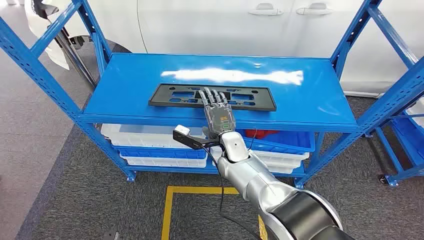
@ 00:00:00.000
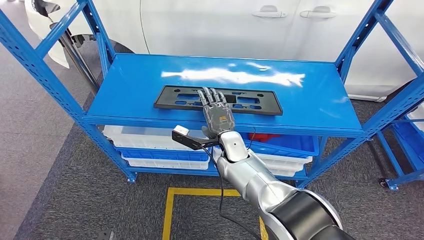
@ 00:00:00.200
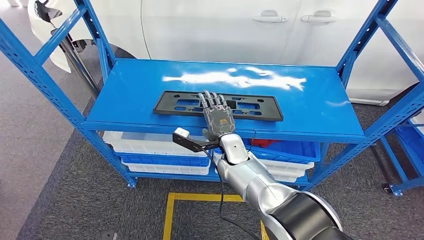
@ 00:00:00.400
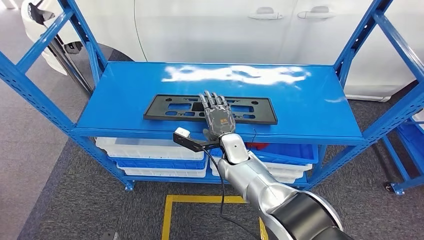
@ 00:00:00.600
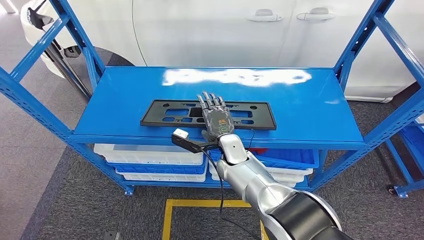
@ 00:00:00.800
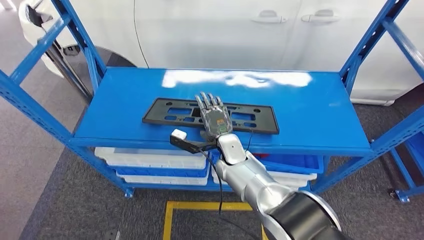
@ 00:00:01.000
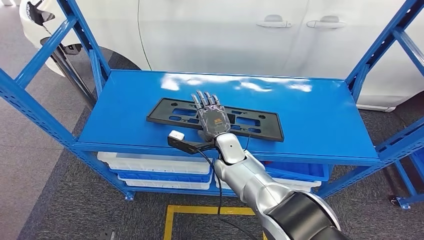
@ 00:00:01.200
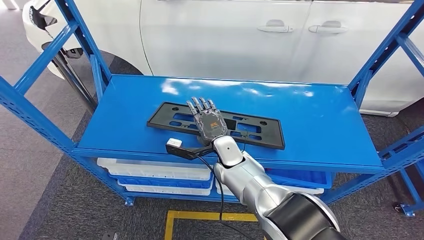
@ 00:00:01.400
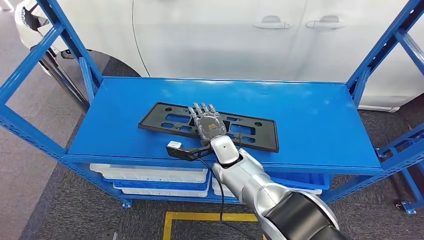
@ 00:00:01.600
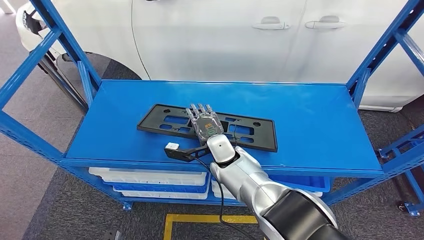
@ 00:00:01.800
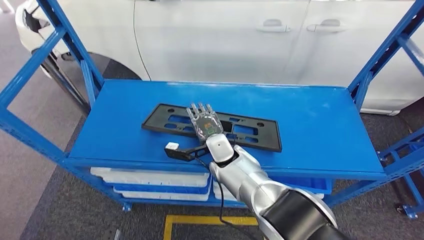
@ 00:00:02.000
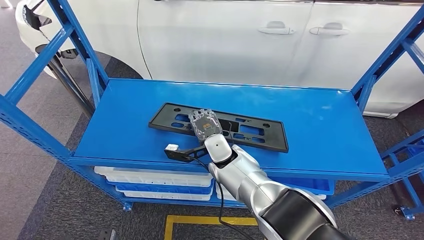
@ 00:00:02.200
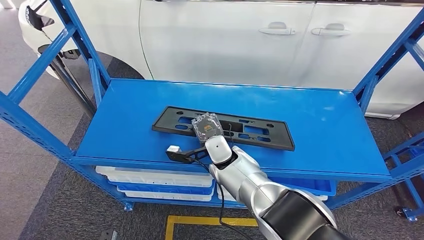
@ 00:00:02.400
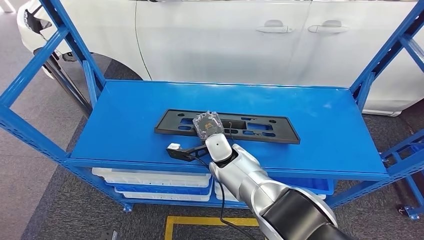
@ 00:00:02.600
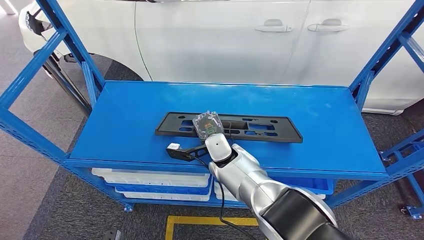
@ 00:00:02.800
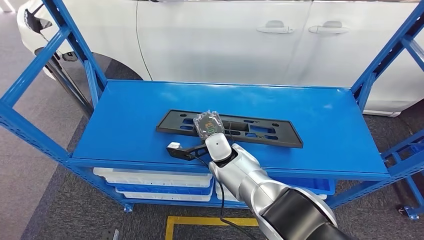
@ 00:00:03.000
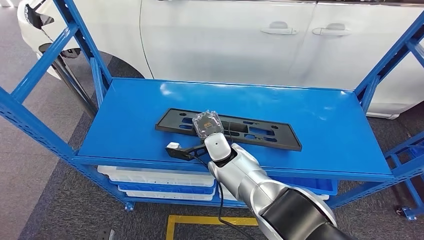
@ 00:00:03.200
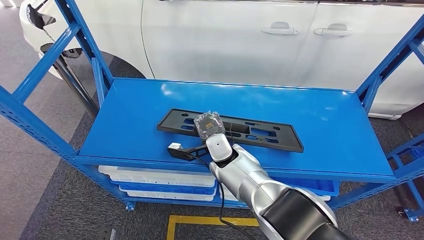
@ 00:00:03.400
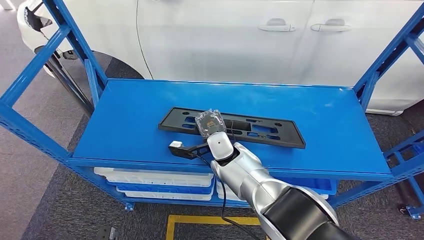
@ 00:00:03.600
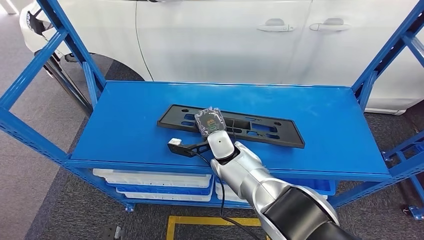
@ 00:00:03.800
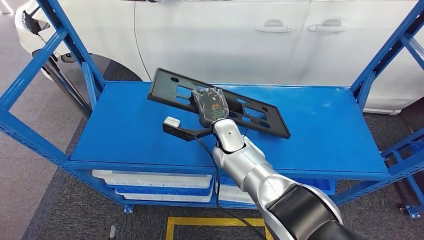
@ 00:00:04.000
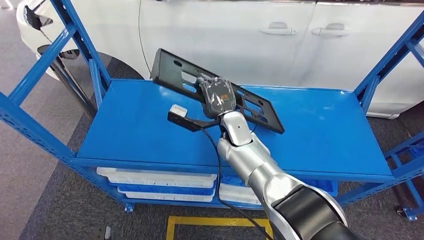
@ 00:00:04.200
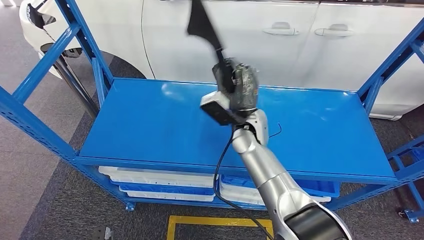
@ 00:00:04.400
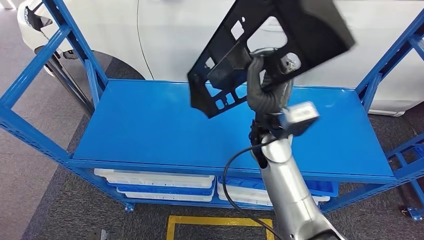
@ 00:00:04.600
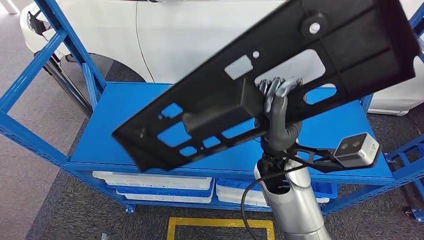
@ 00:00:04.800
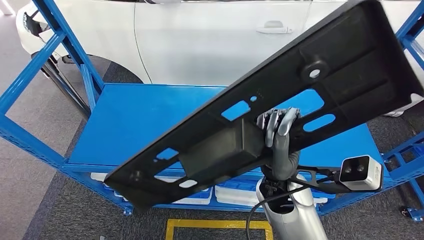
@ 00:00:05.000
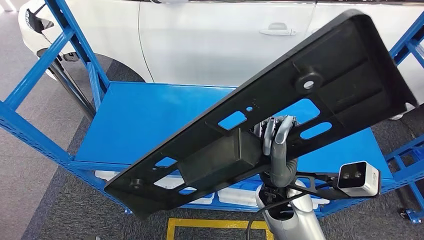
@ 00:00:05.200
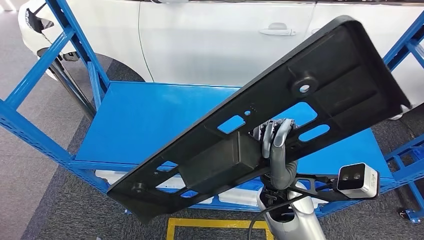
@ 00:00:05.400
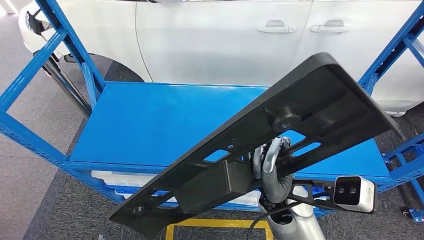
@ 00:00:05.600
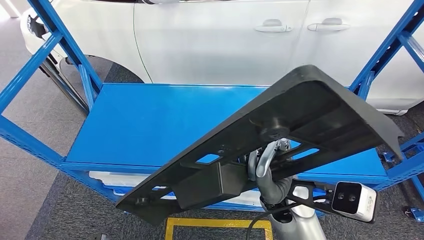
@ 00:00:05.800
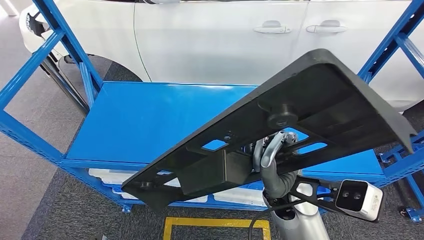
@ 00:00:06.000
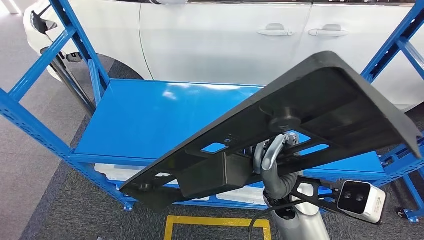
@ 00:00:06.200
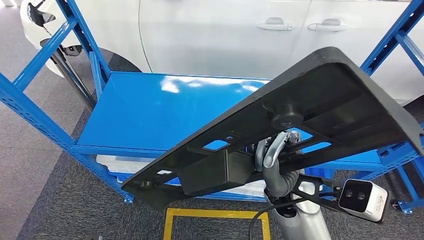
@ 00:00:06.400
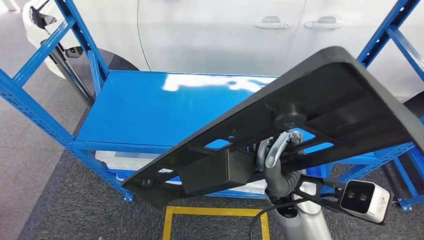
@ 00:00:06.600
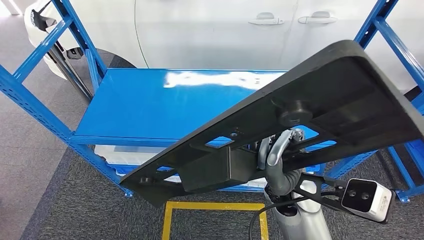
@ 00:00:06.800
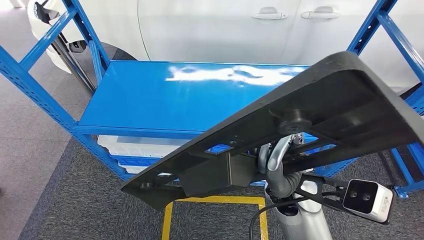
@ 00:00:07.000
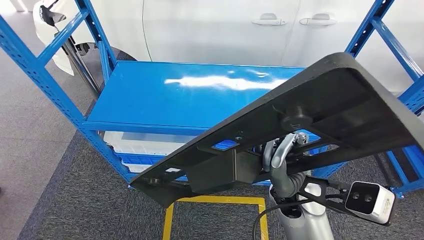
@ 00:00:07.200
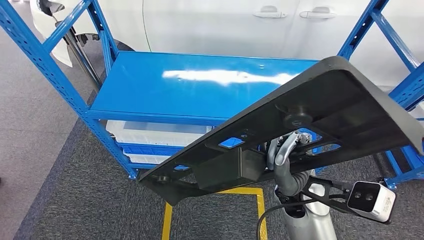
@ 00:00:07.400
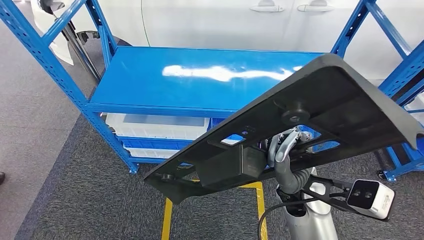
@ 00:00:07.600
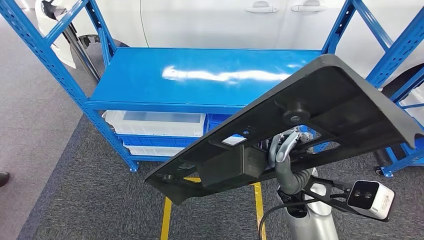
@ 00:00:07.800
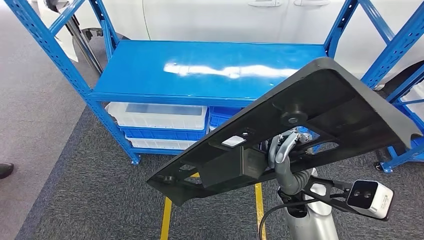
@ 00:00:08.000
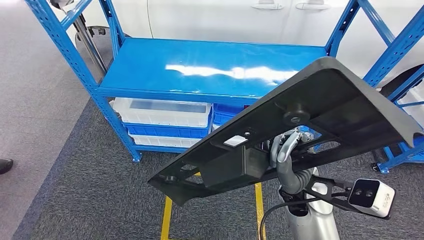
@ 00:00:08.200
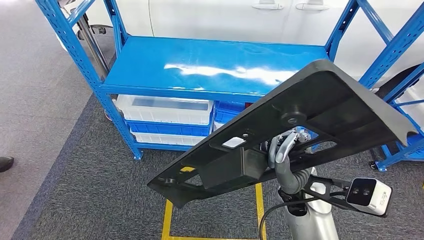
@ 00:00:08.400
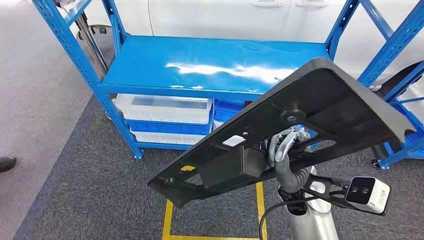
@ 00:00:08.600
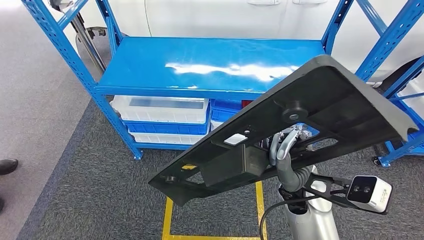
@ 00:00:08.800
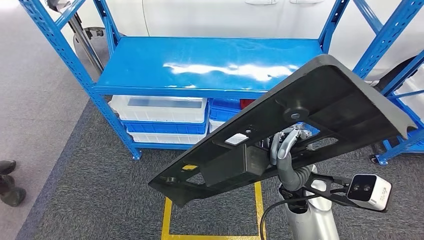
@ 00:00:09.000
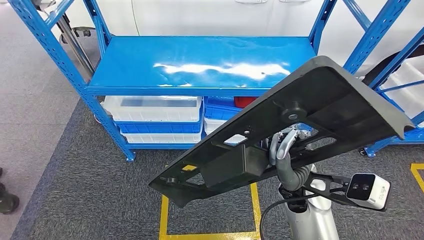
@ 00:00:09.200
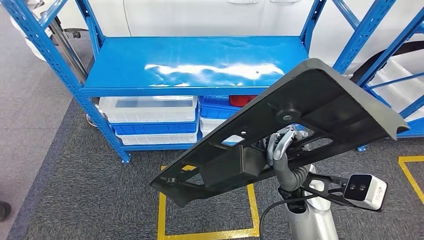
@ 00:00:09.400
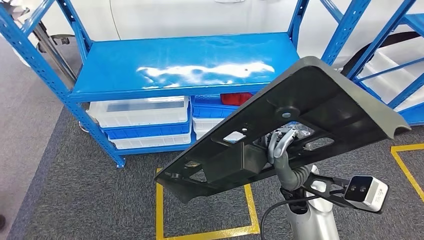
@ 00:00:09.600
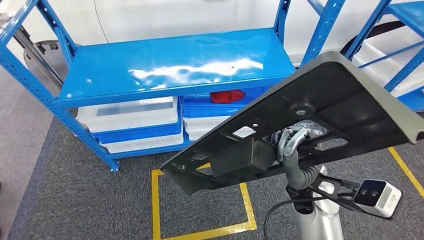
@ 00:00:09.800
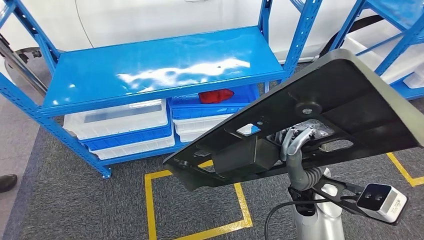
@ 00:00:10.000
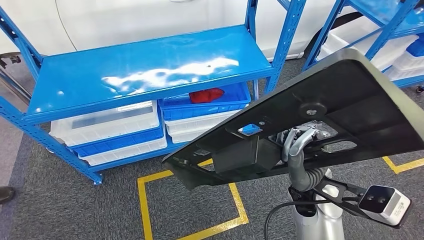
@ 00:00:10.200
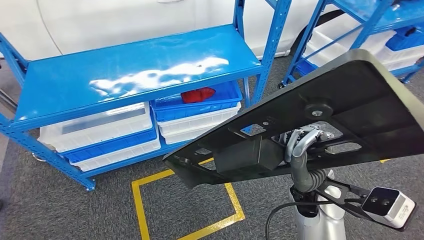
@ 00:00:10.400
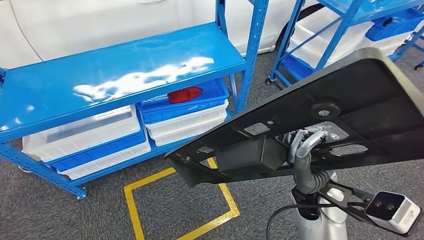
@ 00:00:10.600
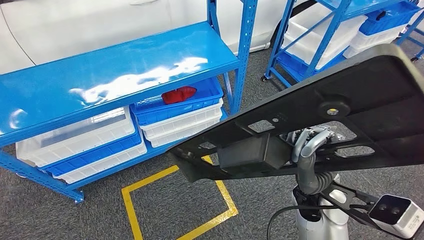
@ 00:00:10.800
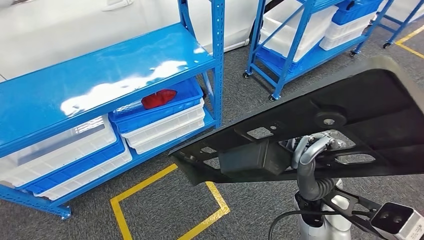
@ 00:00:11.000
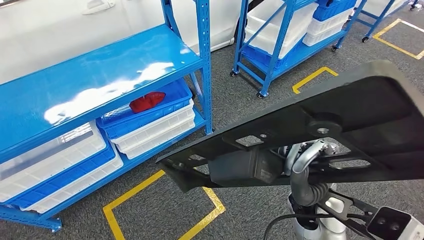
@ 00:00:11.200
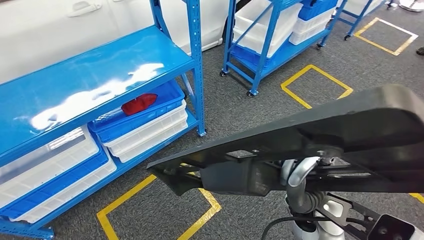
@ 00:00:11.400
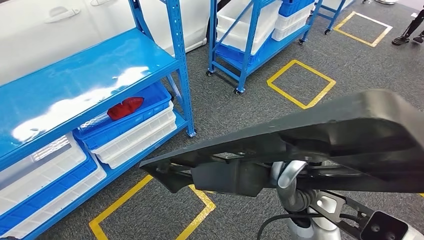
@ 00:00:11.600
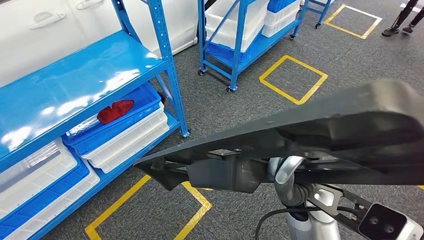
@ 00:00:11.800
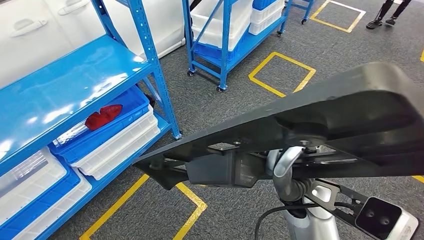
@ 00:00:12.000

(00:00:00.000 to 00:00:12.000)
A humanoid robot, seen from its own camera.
Step, 00:00:00.000 - 00:00:04.600: Pick up the large material from the shelf.

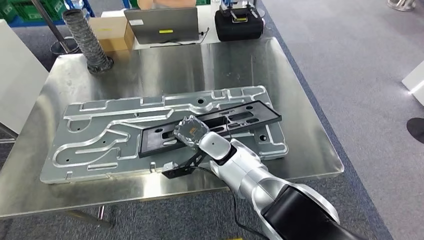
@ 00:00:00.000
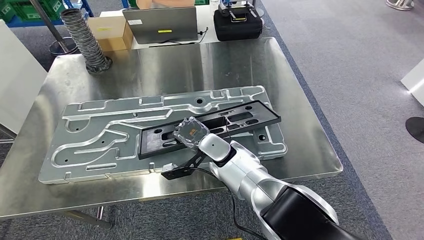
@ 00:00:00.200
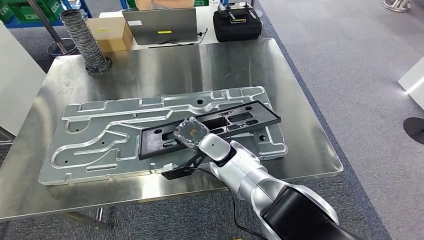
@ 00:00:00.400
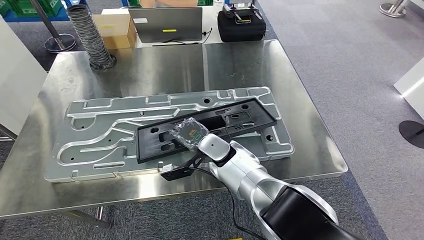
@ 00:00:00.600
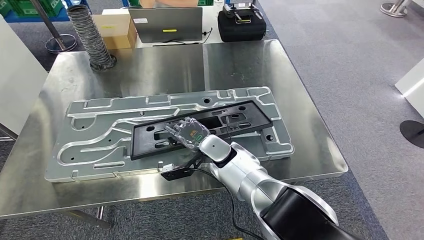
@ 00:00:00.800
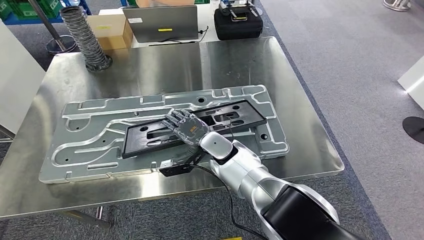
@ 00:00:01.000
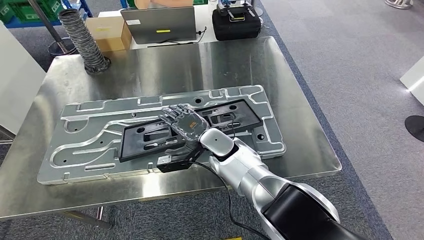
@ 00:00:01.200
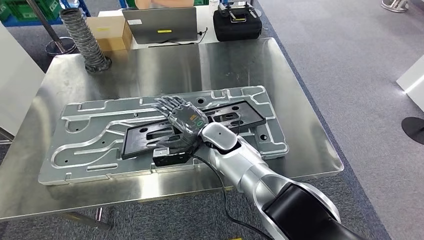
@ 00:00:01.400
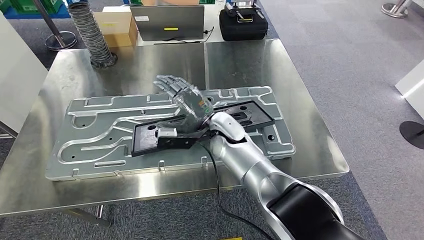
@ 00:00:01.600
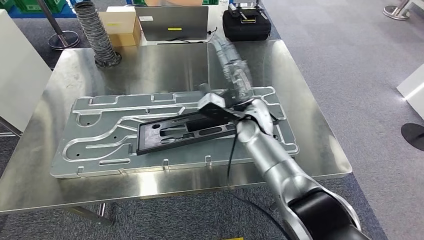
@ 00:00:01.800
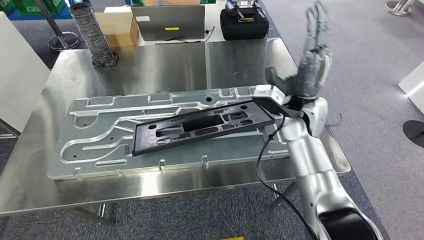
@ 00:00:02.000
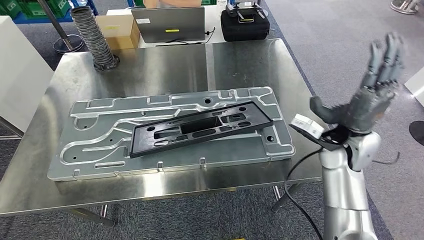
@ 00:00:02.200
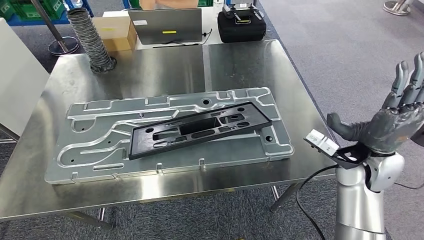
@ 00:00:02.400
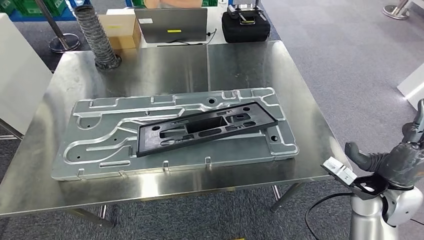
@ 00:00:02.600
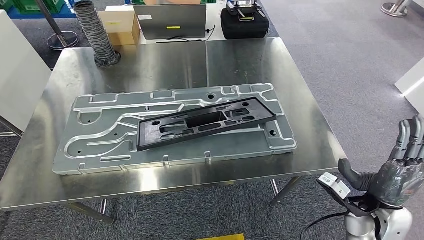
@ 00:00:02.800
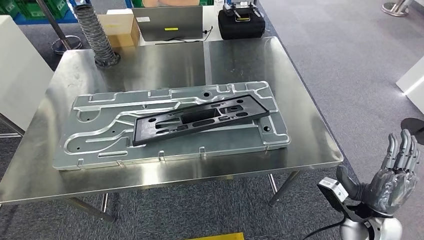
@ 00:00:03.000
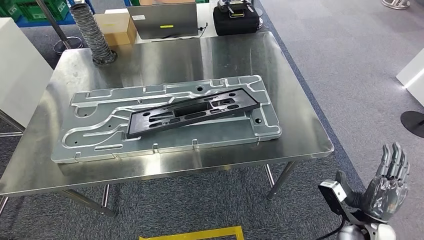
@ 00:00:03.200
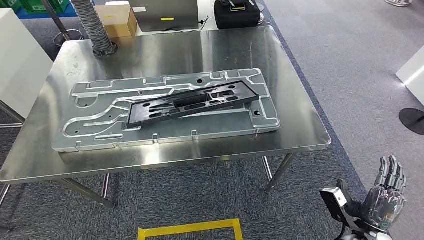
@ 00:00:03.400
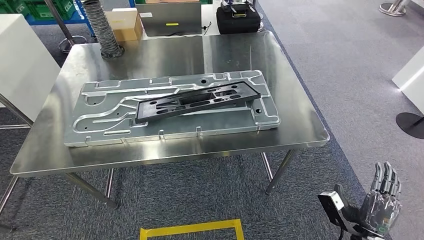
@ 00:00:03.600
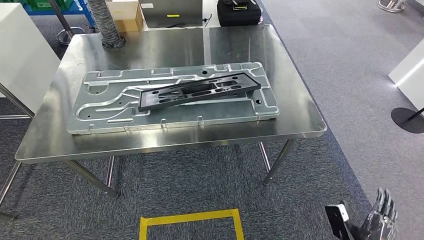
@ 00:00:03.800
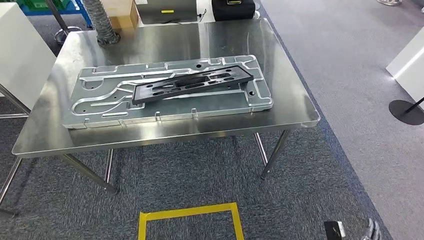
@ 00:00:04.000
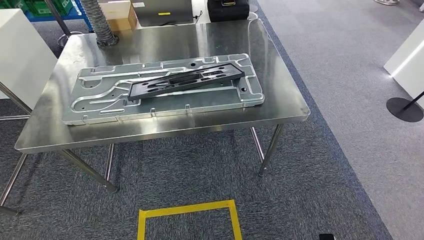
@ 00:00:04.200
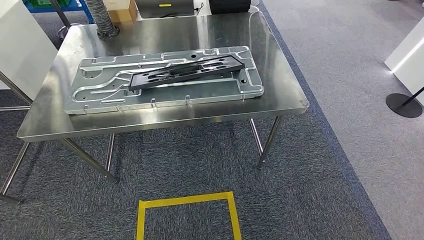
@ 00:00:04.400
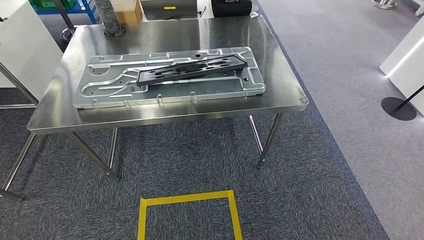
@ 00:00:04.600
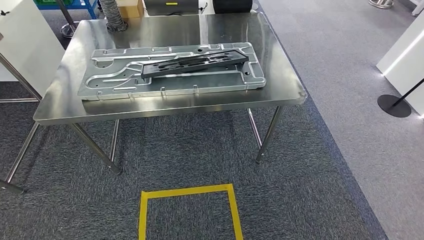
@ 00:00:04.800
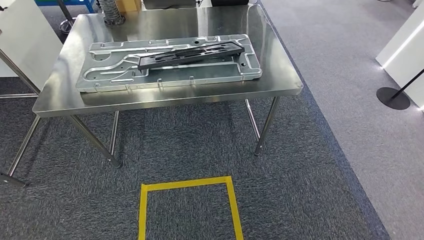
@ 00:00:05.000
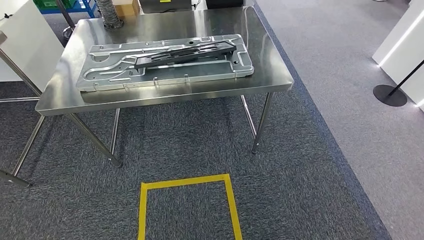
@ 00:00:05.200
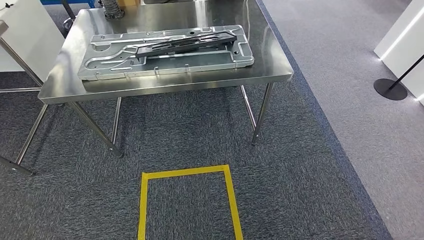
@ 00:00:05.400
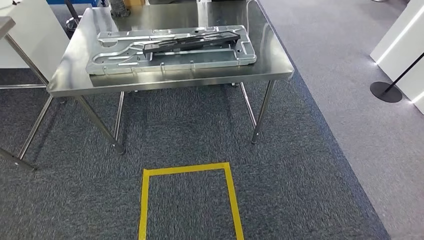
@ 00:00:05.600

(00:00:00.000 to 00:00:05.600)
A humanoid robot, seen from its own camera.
Step, 00:00:00.000 - 00:00:02.200: Insert the large material into the corresponding slot on the workbench.
